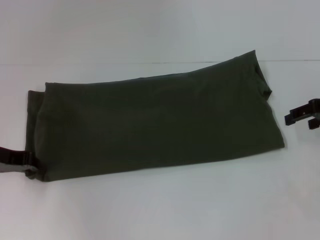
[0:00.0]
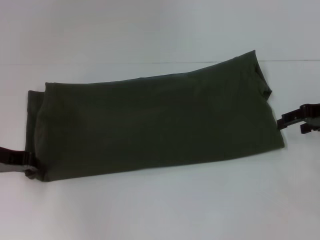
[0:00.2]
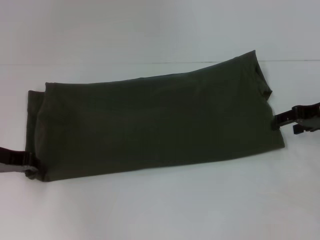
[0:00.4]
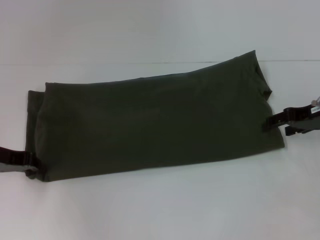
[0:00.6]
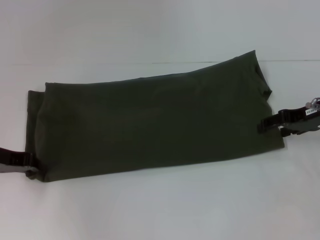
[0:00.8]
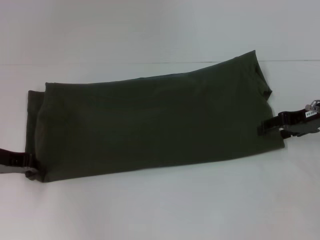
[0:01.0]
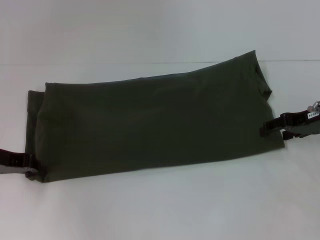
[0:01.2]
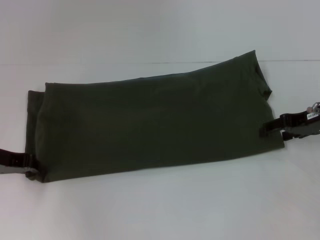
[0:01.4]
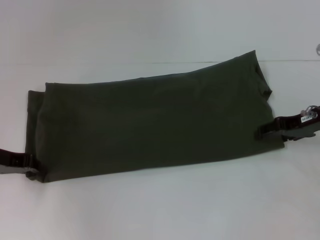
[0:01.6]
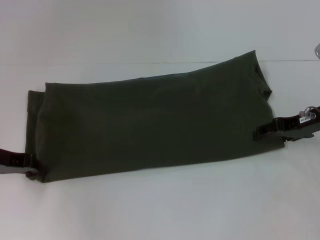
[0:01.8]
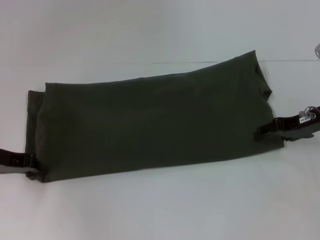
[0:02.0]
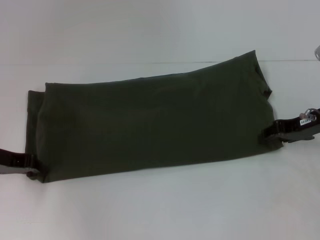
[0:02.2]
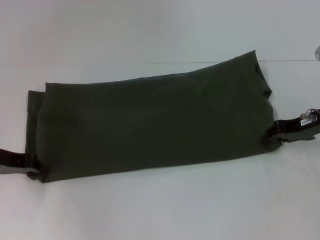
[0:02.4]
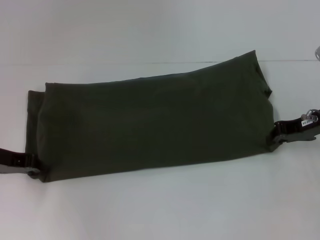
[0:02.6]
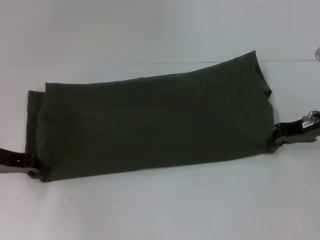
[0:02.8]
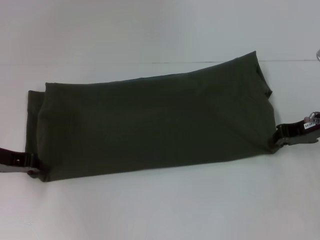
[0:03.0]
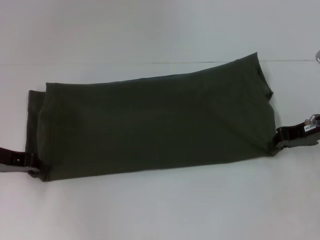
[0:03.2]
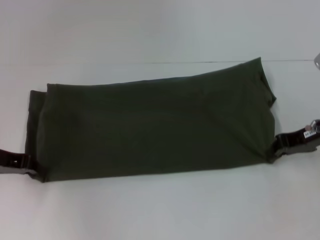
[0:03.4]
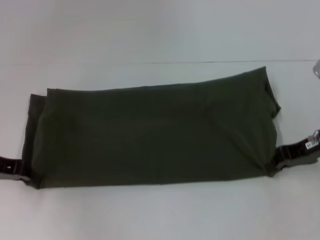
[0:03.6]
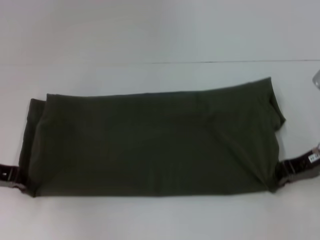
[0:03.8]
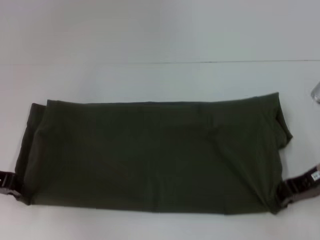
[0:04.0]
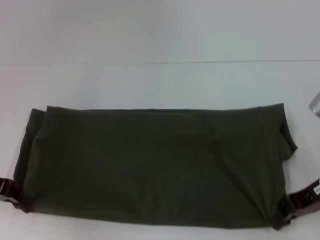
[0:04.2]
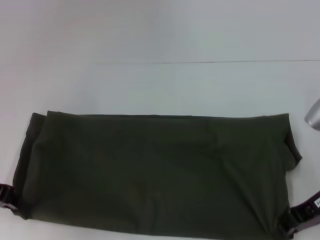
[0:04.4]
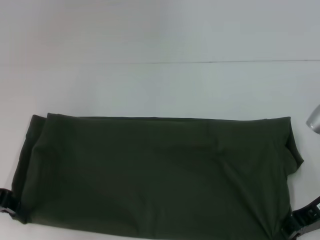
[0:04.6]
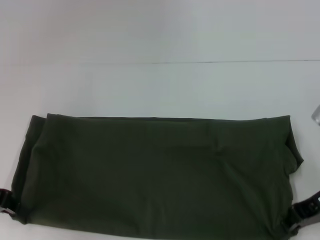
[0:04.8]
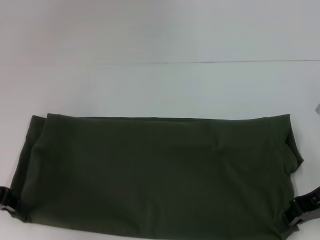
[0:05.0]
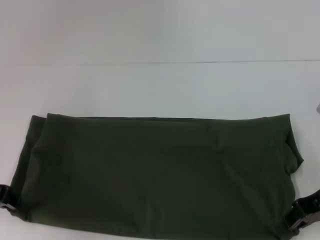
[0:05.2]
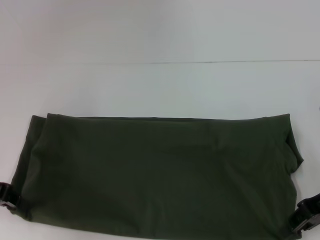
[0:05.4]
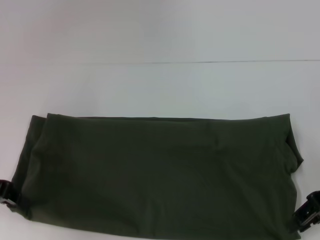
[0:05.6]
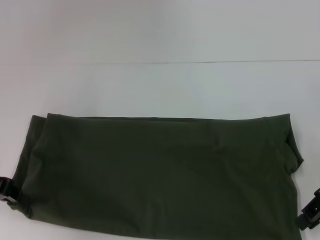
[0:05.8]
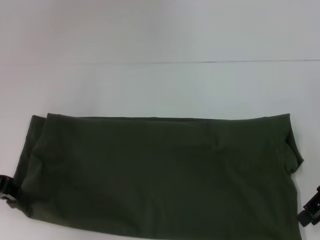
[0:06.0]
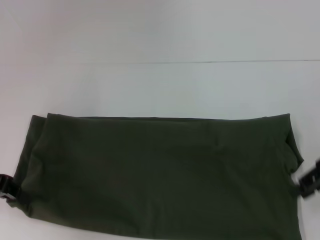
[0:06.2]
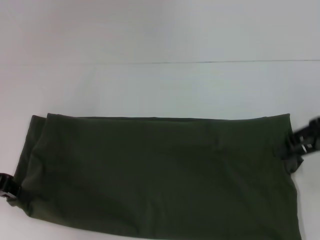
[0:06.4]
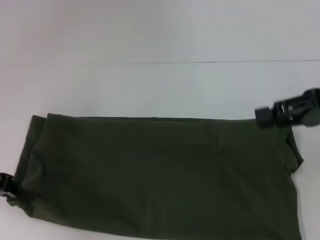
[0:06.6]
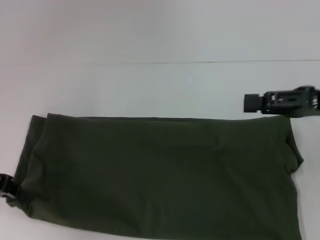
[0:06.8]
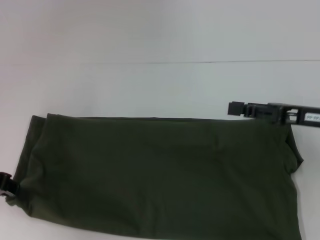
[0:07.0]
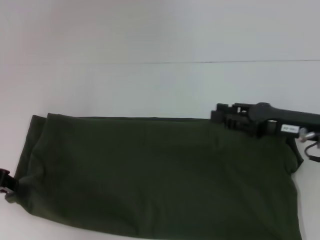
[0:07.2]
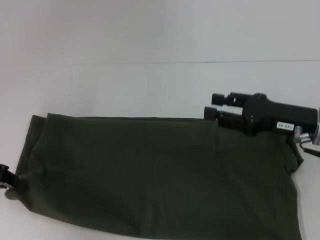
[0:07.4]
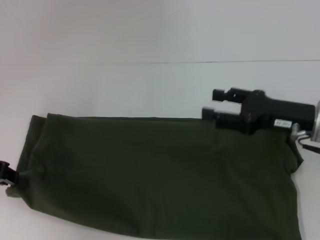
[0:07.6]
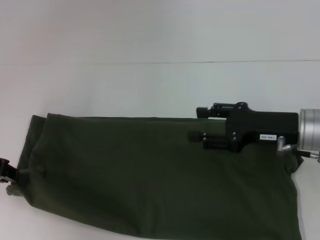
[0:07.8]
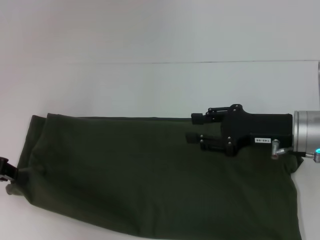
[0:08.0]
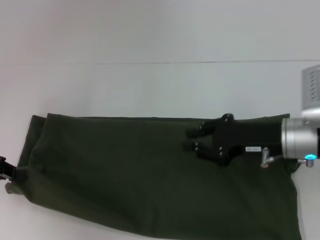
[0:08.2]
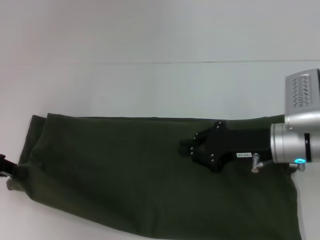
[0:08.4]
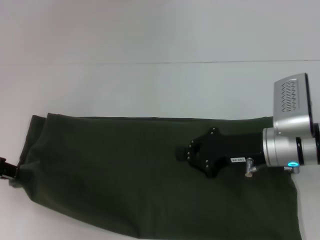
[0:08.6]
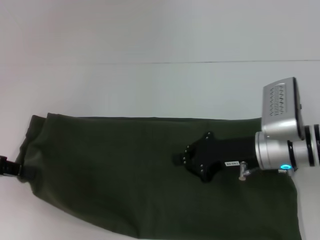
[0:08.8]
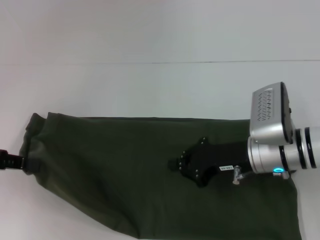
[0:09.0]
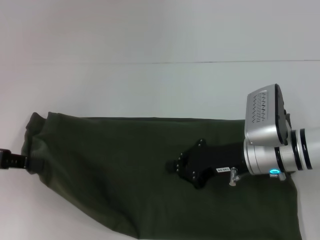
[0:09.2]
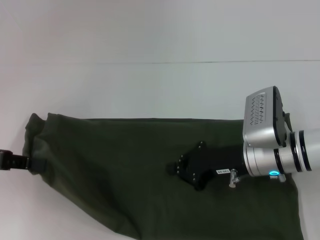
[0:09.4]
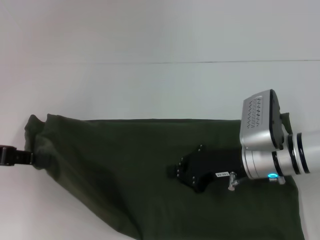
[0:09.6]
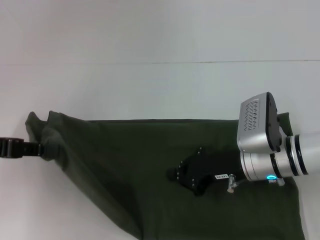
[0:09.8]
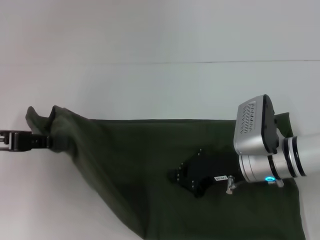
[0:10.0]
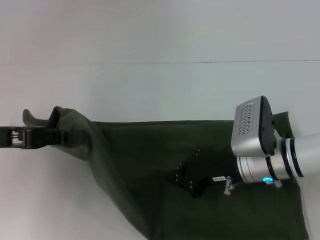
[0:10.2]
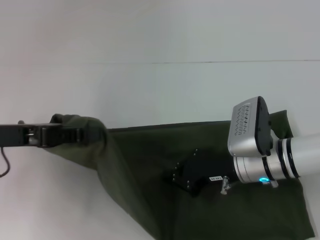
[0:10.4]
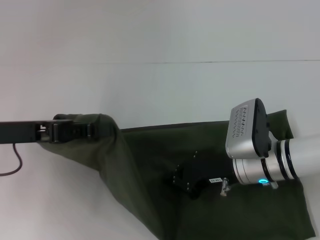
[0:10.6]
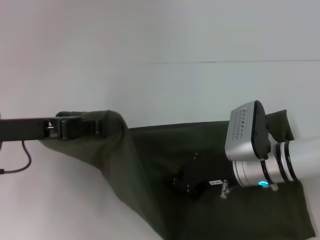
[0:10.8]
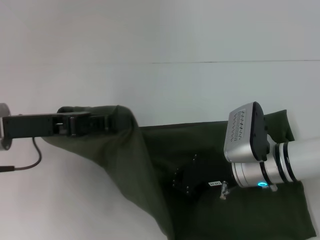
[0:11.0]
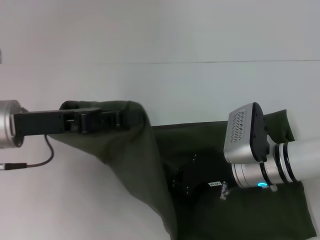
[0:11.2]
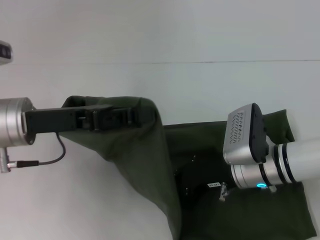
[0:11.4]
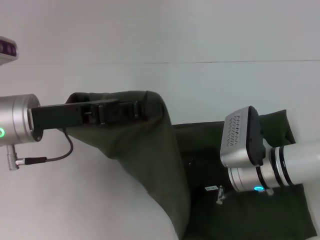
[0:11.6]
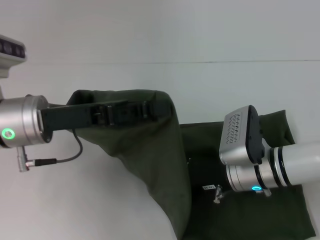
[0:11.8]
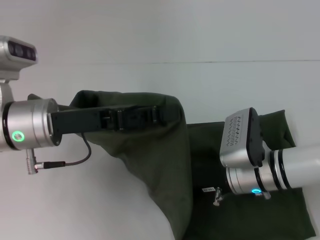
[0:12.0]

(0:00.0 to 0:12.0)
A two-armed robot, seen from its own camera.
Step, 0:00.0 - 0:05.8: Pull the clothes with your left hand.
Step, 0:00.0 - 0:05.8: Pull the clothes with your right hand.
0:00.0 - 0:01.6: The right gripper moves approximately 5 cm.
0:01.6 - 0:03.0: The right gripper closes its fingers.
0:03.0 - 0:04.4: The right gripper is displaced backward by approximately 5 cm.
0:04.4 - 0:06.0: The right gripper moves upward, approximately 5 cm.
0:06.0 - 0:07.6: The right gripper shifts some 5 cm to the left, and opens its fingers.
0:07.6 - 0:09.0: The right gripper goes about 5 cm to the left, and closes up.
0:09.0 - 0:10.4: The left gripper moves to the right, about 5 cm.
0:10.4 - 0:12.0: The left gripper heads to the right, covering about 10 cm.

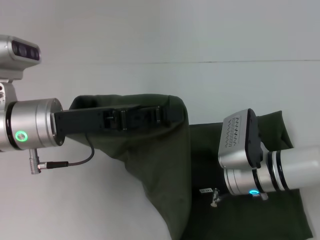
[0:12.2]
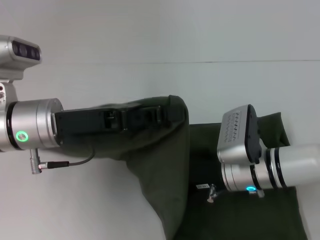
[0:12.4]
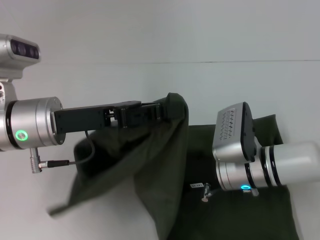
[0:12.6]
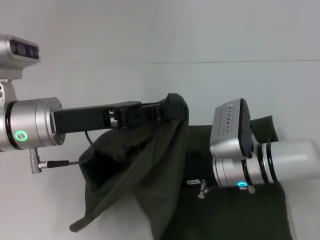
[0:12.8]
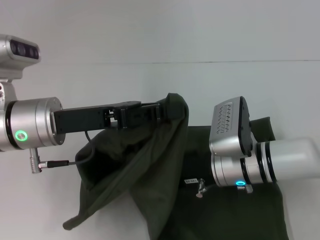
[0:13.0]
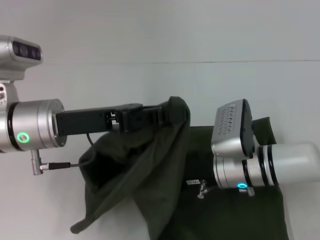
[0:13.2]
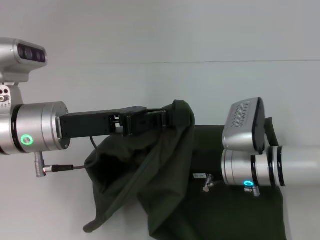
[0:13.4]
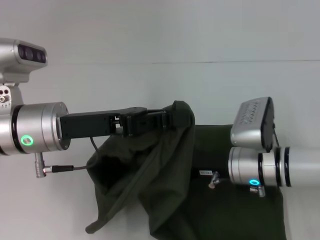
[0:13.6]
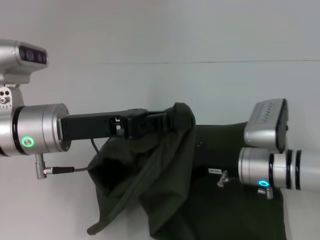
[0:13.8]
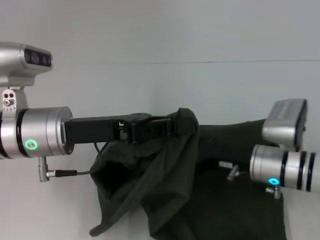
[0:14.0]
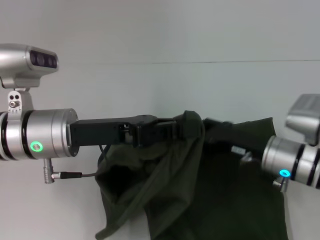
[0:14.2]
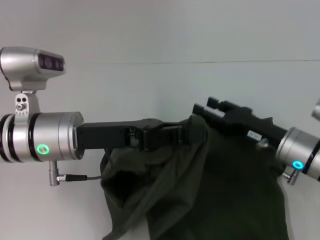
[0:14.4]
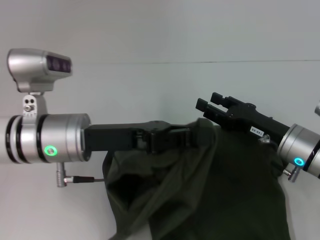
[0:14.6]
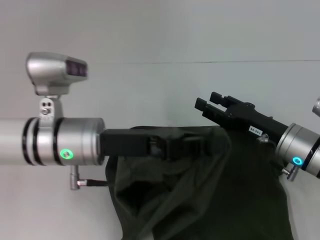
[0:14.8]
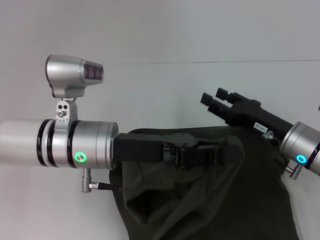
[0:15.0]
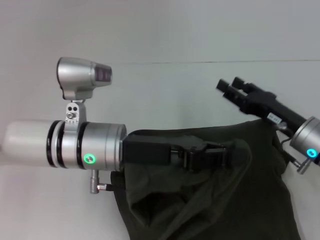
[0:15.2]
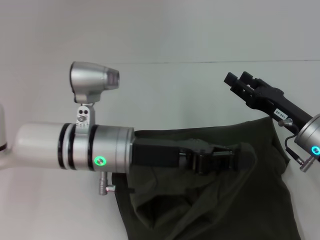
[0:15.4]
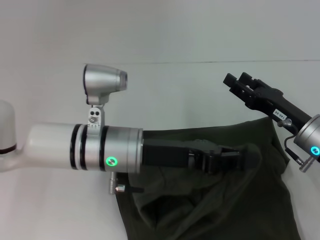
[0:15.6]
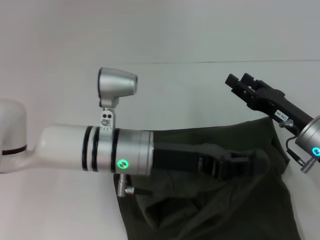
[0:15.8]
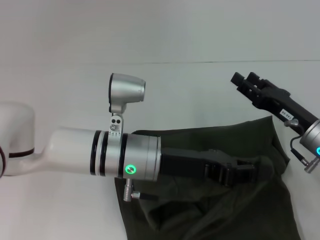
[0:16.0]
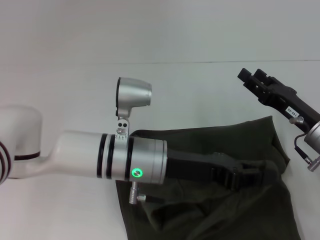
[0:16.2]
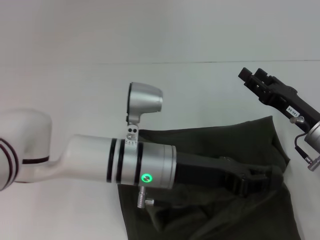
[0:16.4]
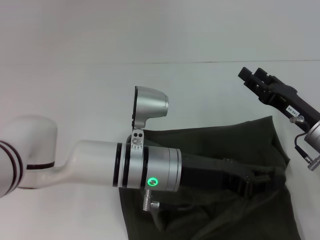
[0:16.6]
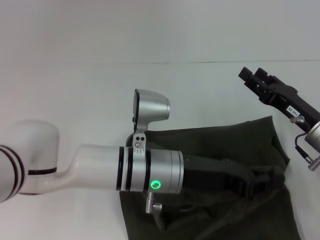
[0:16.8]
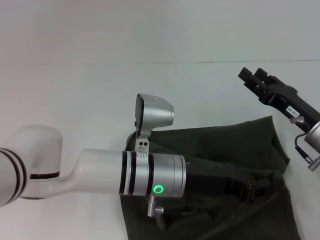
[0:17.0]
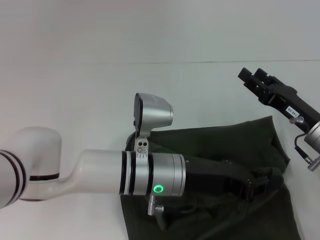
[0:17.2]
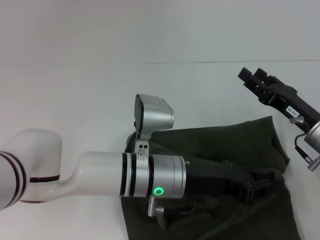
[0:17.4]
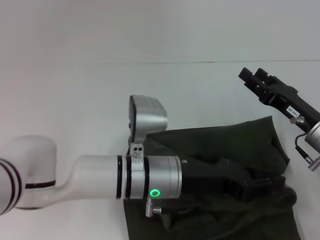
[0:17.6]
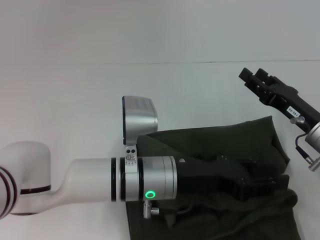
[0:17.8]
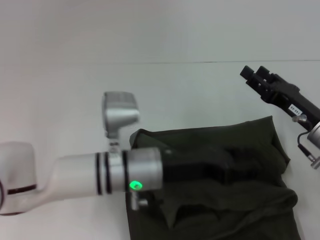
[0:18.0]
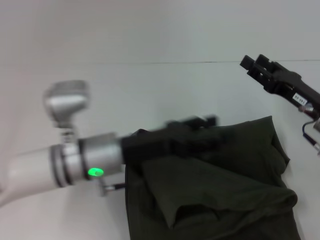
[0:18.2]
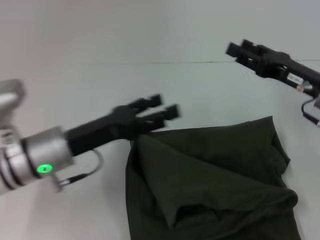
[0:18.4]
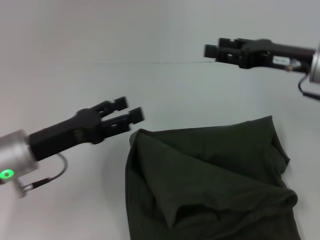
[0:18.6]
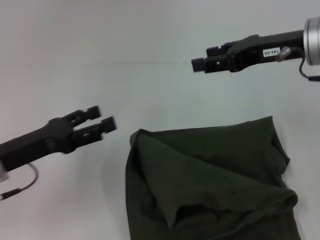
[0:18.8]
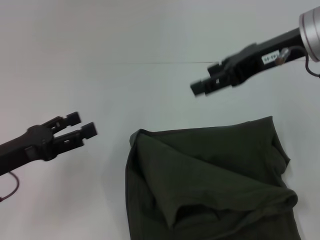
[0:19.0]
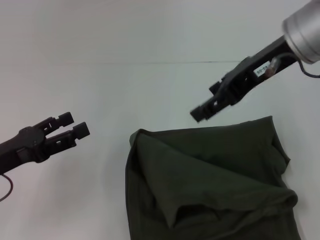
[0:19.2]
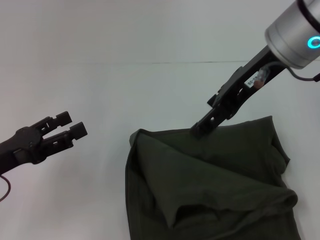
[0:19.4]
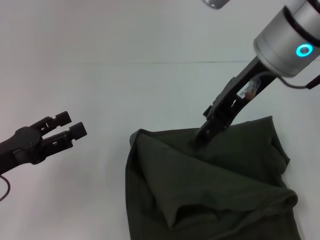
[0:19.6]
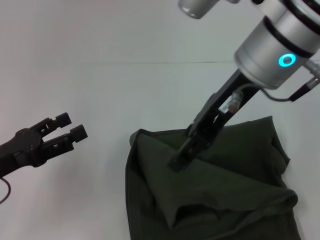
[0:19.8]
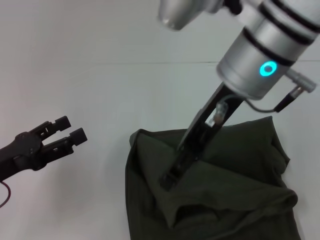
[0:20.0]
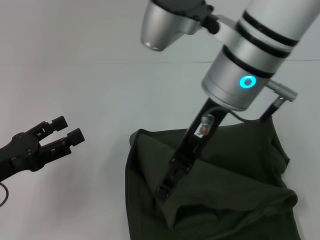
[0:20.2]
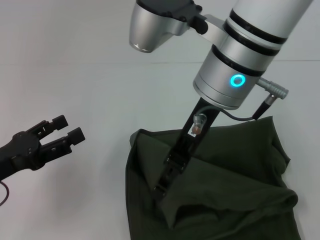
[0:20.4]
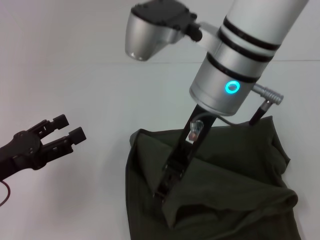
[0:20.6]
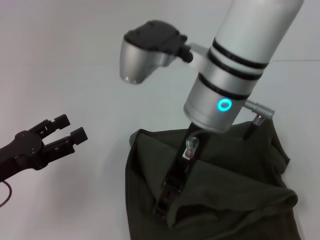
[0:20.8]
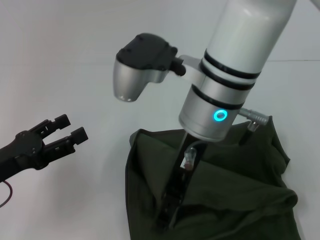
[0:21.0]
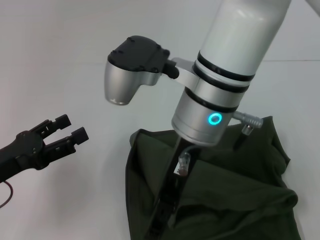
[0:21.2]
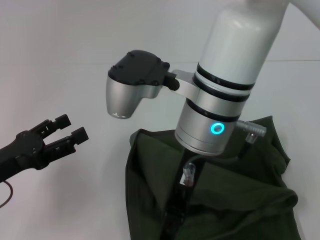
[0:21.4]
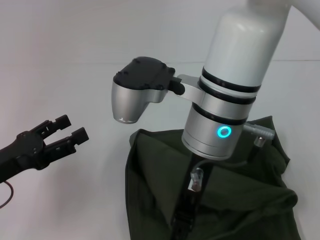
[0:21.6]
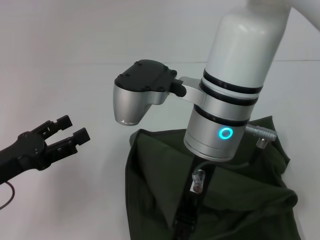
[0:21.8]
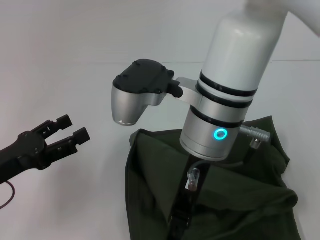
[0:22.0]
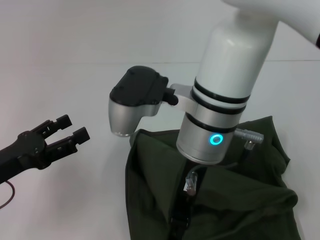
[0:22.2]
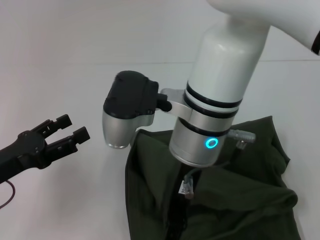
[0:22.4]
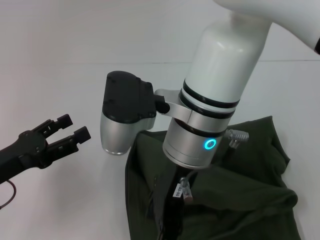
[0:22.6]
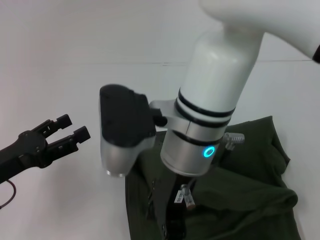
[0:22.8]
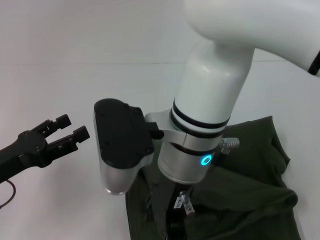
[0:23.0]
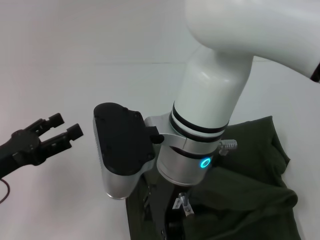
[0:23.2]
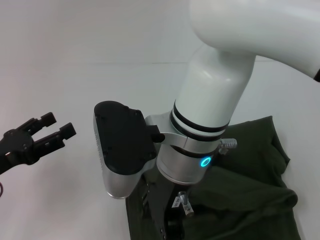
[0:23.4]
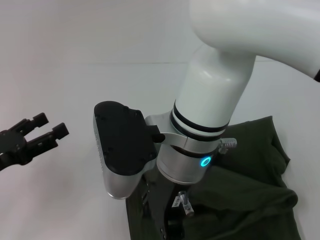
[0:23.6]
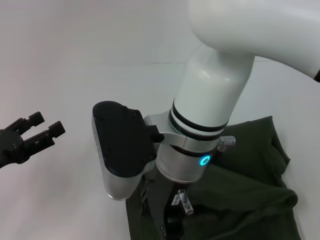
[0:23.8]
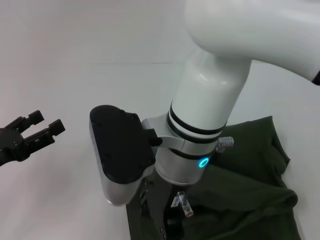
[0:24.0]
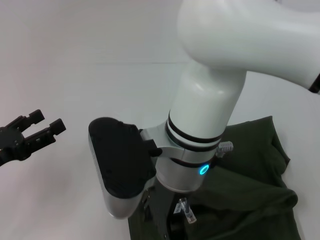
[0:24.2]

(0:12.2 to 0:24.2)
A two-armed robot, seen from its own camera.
Step, 0:12.2 - 0:17.6: Fold the clothes with your left hand.
0:13.8 - 0:15.2: Both grippers travel together to the right, about 5 cm. The right gripper opens up.
0:15.2 - 0:16.6: The left gripper shifts about 5 cm to the right.
0:16.6 - 0:18.2: The left gripper shifts some 5 cm to the left, and opens its fingers.
0:18.2 - 0:19.8: The left gripper goes approximately 20 cm to the left. The right gripper moves upward and to the left, approximately 25 cm.
0:19.8 - 0:21.2: The right gripper is displaced to the left and downward by approximately 10 cm.
